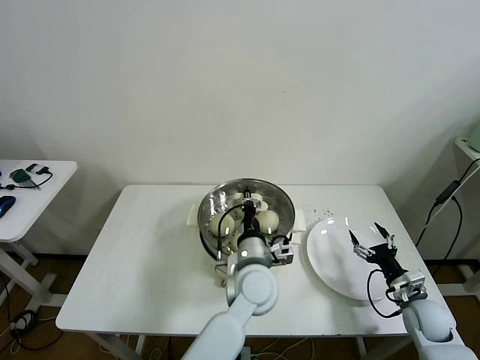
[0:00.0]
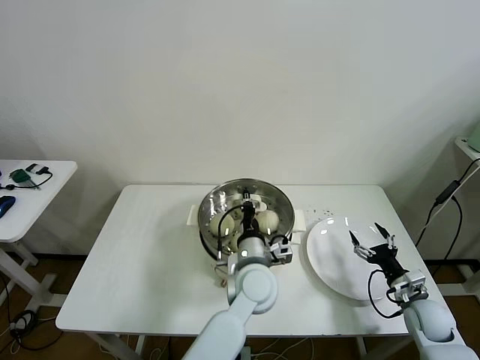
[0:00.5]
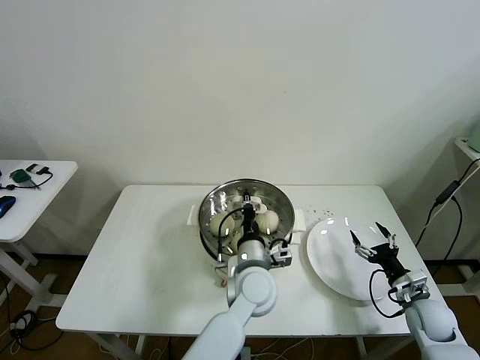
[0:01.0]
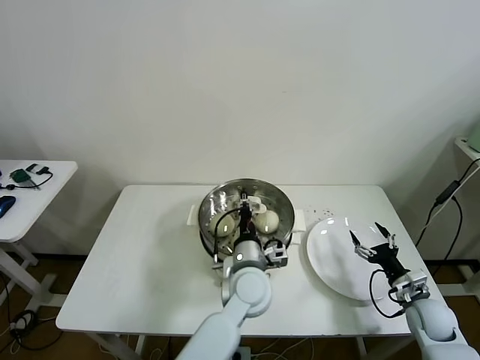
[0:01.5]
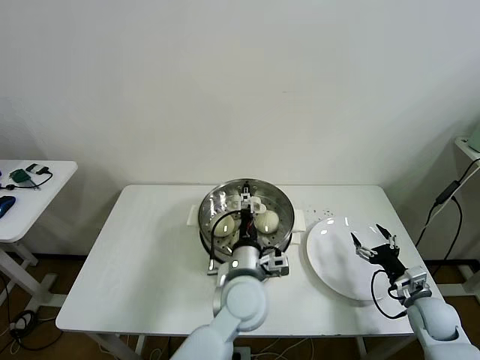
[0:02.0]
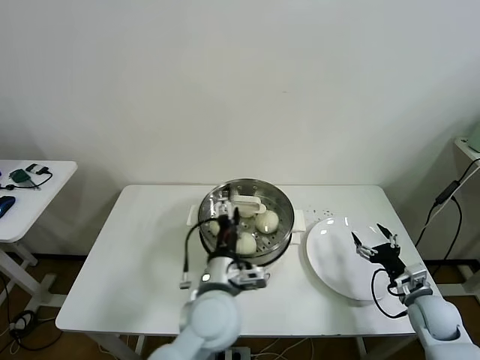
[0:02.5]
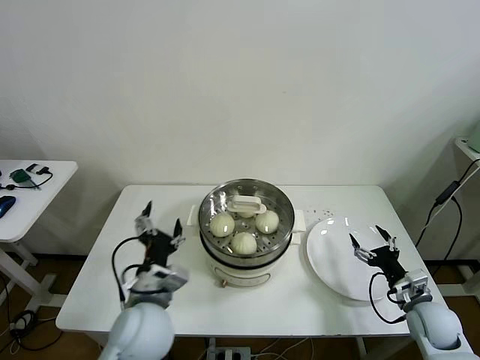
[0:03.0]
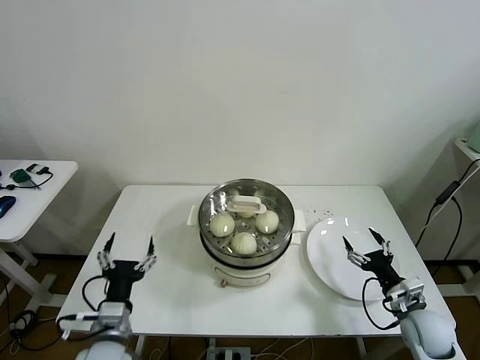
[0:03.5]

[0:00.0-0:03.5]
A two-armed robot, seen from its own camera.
Task of the whole recording: take steamed baozi put them in steamer then cover it.
0:00.0 to 0:02.0: The left gripper opens.
0:02.0 to 0:03.5: The left gripper goes approximately 25 cm to the left and backward.
